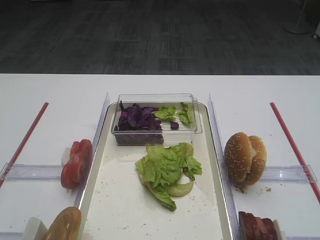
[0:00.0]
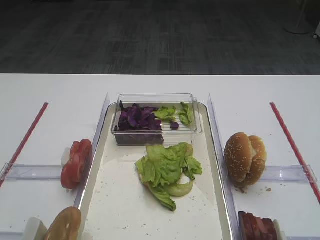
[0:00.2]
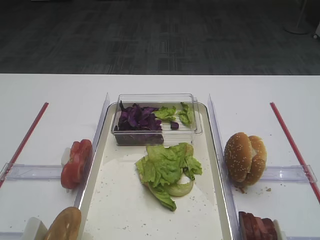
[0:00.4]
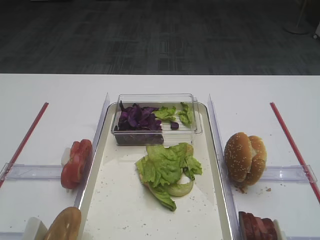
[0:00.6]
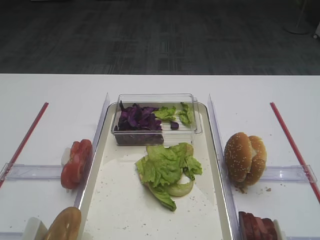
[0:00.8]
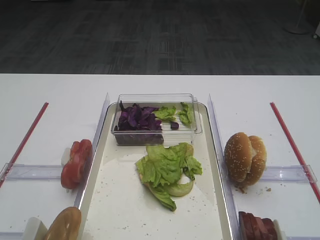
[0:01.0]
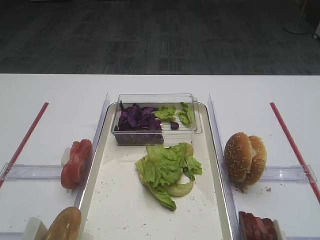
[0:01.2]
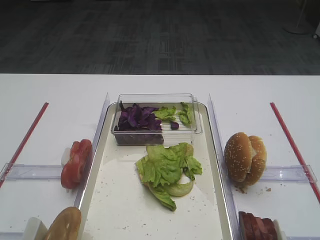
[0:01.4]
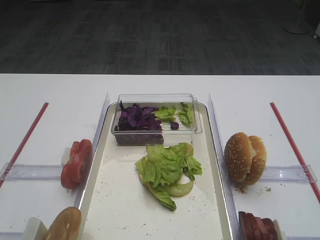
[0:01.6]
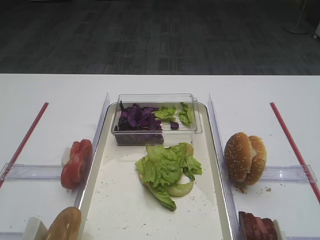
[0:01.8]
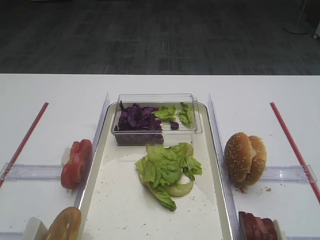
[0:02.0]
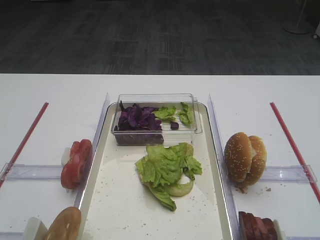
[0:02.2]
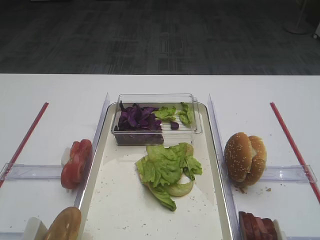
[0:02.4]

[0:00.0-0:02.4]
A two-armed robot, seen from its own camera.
0:00.0 to 0:02.4: Neither gripper changes place.

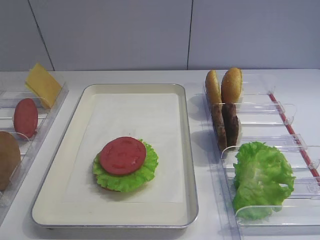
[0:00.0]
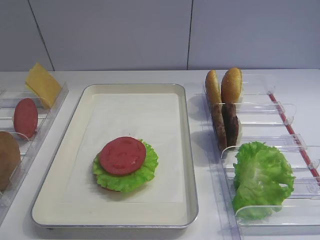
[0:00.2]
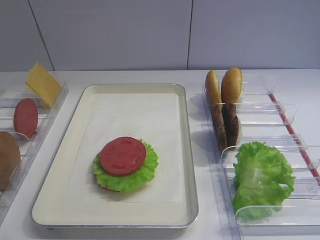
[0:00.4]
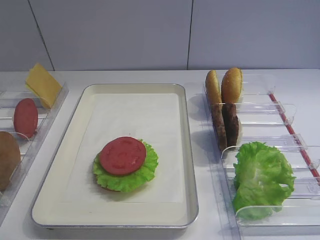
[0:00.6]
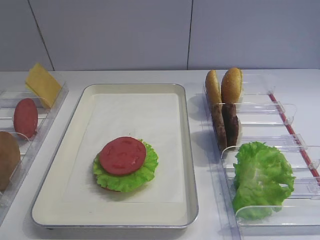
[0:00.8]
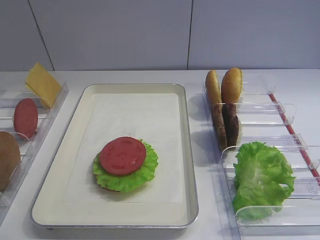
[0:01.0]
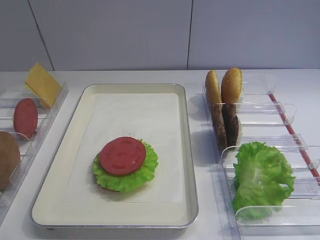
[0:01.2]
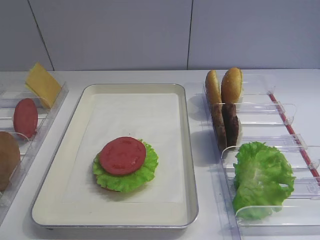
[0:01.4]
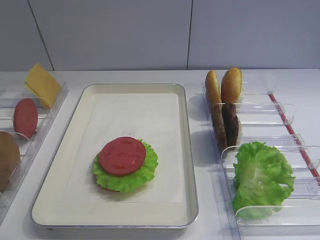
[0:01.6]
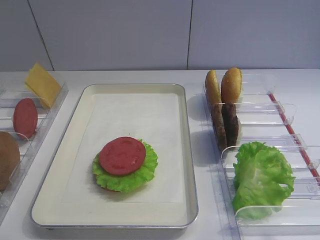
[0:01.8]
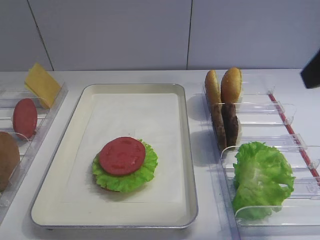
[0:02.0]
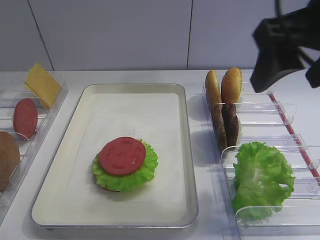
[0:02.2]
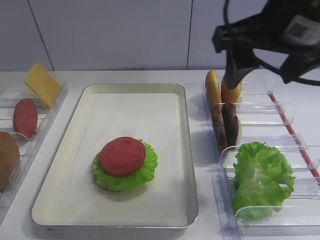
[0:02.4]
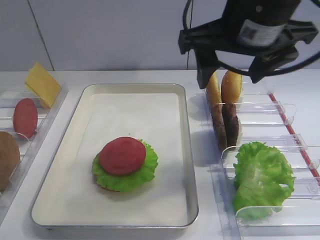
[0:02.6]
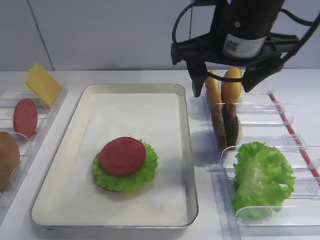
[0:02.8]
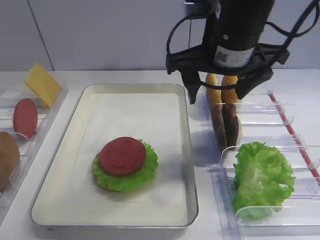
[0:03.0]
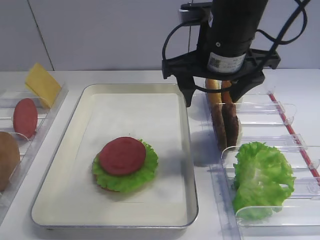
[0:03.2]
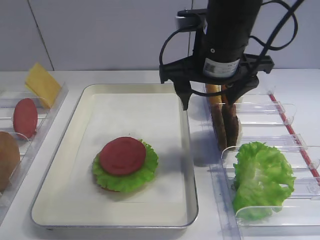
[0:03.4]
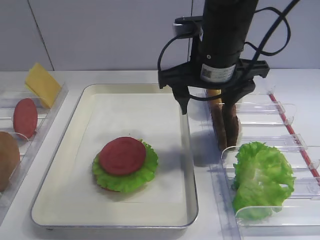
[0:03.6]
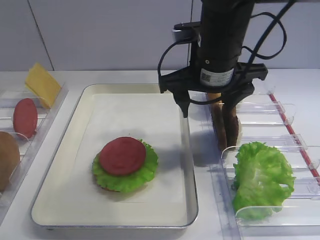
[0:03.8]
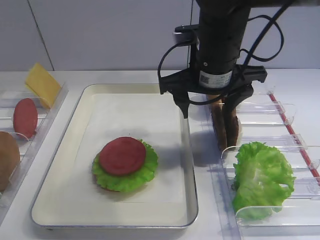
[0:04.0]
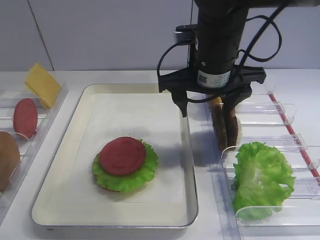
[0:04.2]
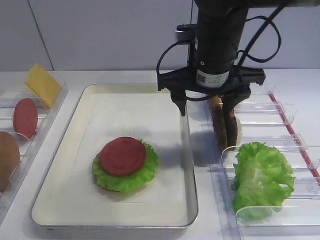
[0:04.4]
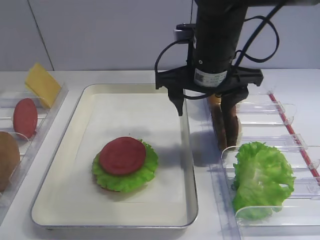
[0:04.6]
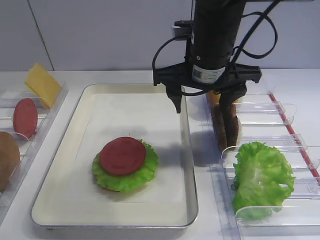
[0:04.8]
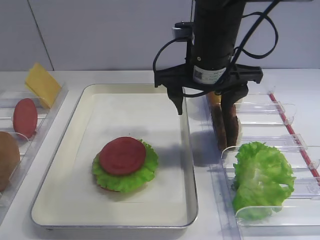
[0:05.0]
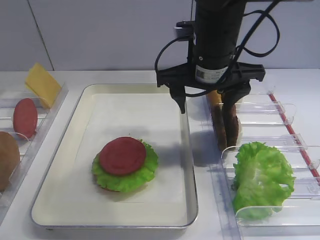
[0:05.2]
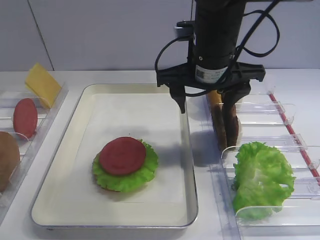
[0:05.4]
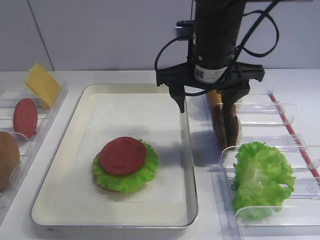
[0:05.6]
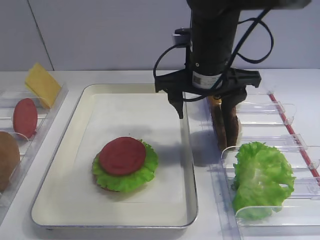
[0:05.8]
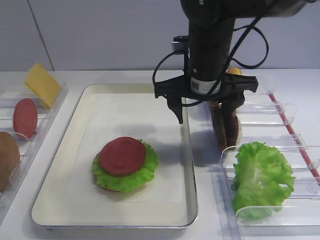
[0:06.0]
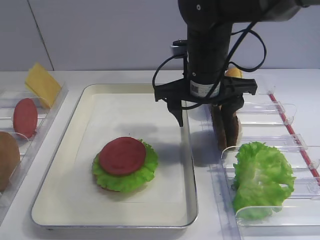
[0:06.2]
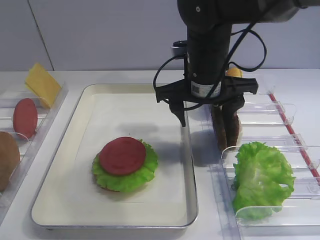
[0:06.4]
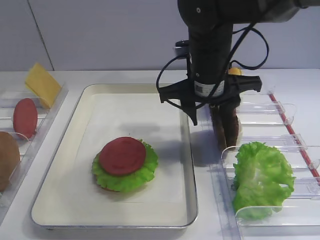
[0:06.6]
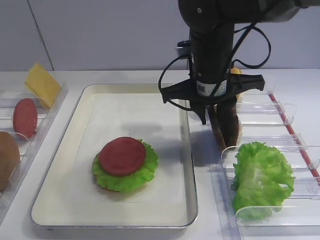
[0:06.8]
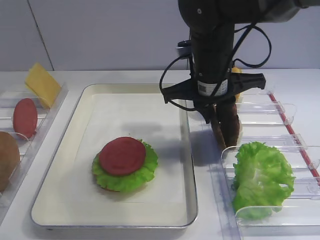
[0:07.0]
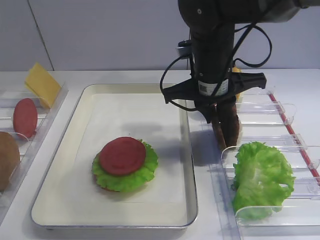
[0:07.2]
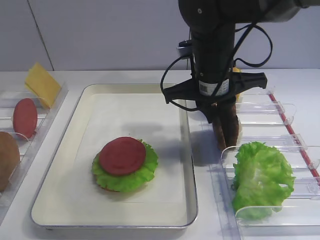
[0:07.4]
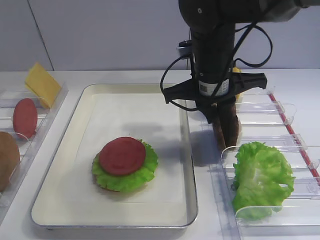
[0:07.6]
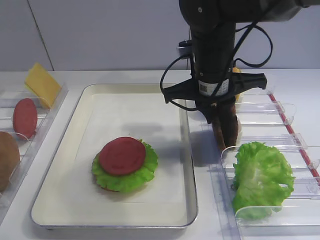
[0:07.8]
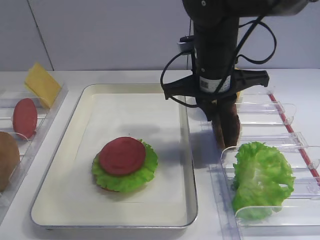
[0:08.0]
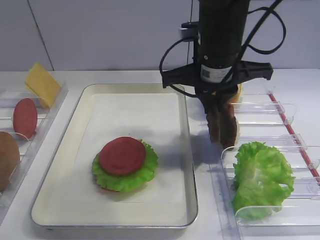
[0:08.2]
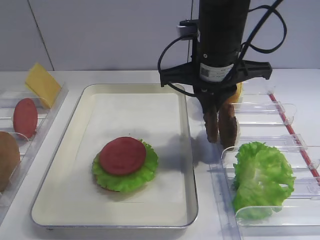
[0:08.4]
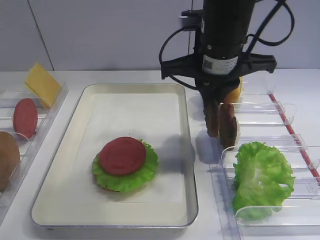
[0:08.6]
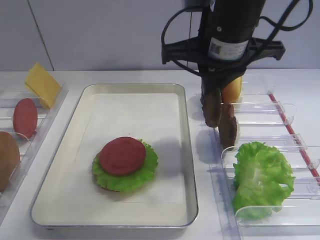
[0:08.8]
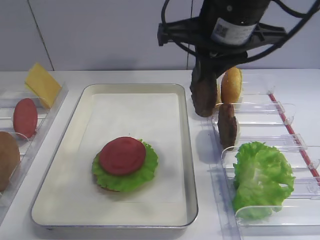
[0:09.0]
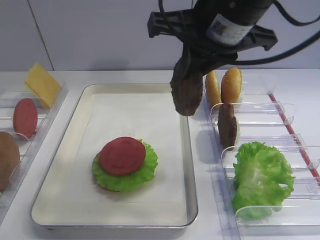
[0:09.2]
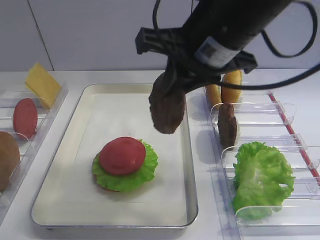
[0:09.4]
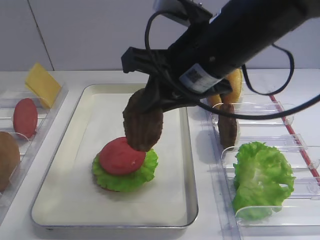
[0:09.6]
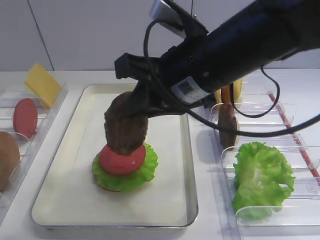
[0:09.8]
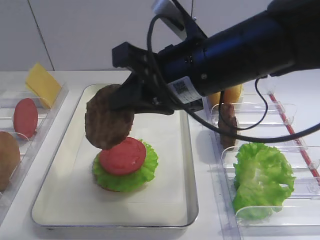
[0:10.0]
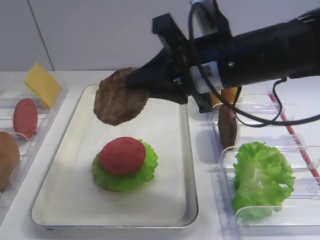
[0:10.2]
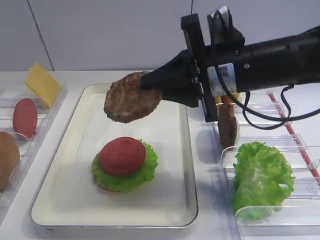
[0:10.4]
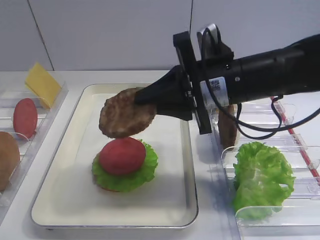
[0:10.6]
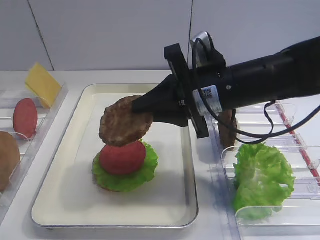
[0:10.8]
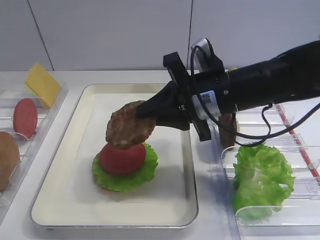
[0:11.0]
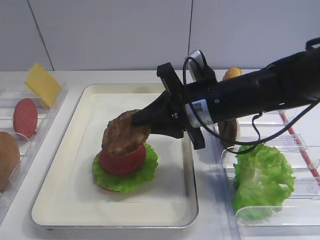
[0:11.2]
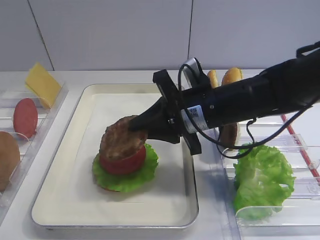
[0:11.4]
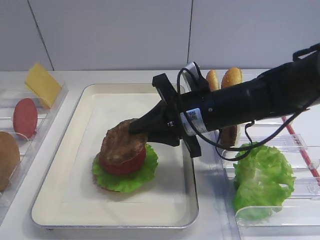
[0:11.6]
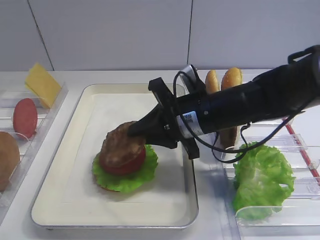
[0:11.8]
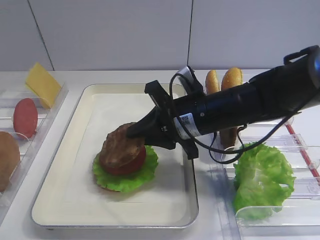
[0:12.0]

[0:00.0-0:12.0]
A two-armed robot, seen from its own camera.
Step, 0:00.0 to 0:08.4: Pick up the cutlet with the right gripper.
0:01.6 to 0:03.0: The right gripper shifts some 25 cm forward and to the left.
0:03.0 to 0:04.4: The right gripper shifts by roughly 5 cm.
0:04.4 to 0:06.0: There are only small adjustments of the grippers.
0:06.0 to 0:07.6: The right gripper closes its fingers.
0:07.6 to 0:09.0: The right gripper heads upward, covering approximately 10 cm.
0:09.0 to 0:10.4: The right gripper heads downward, covering some 10 cm.
0:10.4 to 0:12.0: The right gripper is displaced downward by about 10 cm.

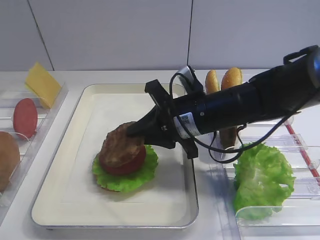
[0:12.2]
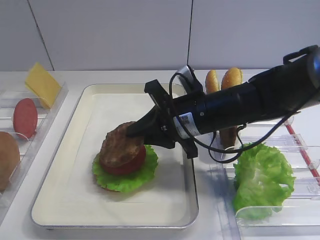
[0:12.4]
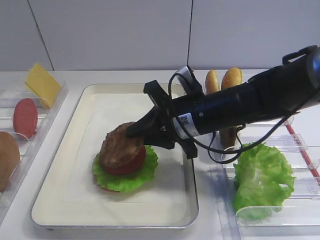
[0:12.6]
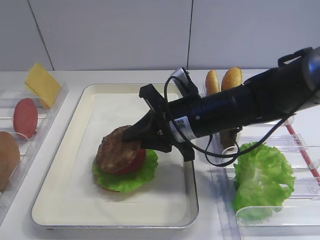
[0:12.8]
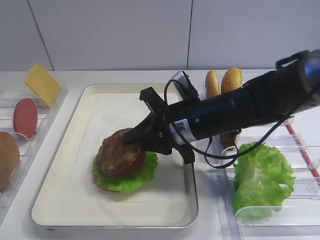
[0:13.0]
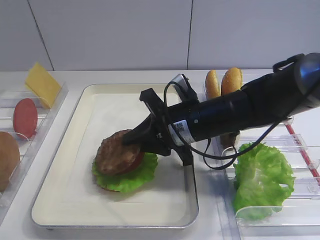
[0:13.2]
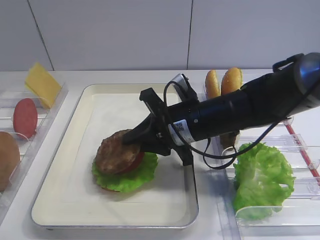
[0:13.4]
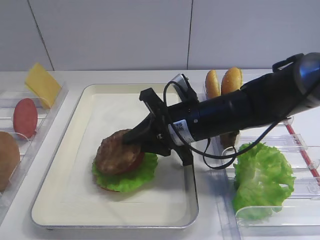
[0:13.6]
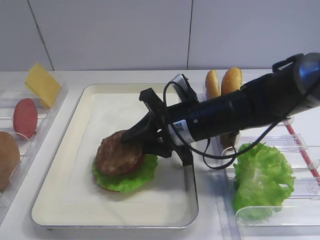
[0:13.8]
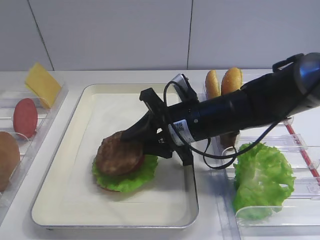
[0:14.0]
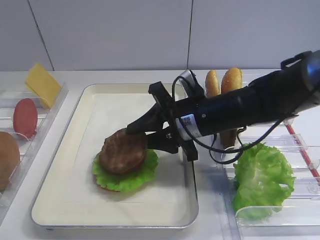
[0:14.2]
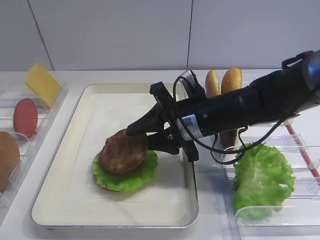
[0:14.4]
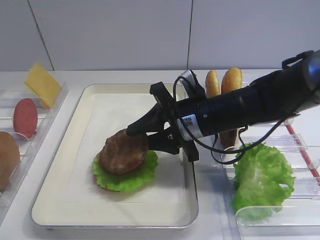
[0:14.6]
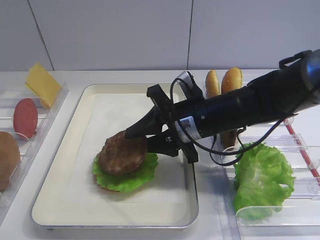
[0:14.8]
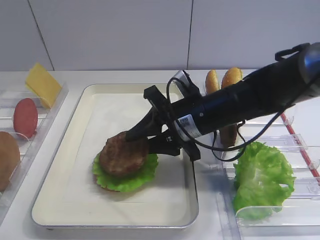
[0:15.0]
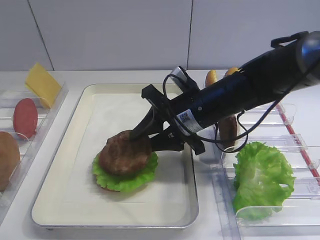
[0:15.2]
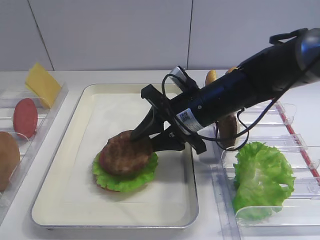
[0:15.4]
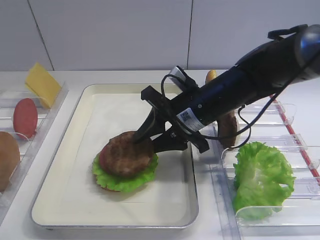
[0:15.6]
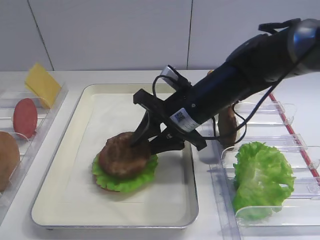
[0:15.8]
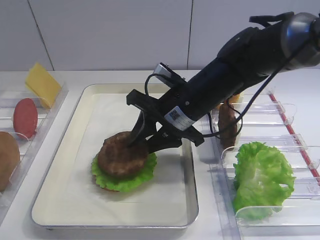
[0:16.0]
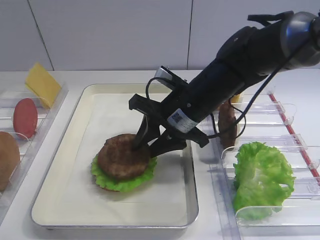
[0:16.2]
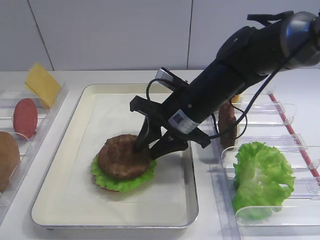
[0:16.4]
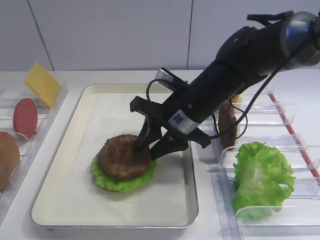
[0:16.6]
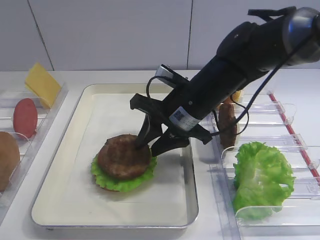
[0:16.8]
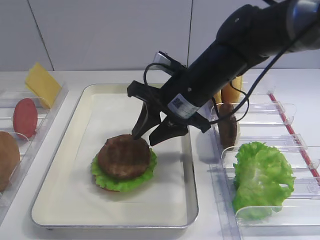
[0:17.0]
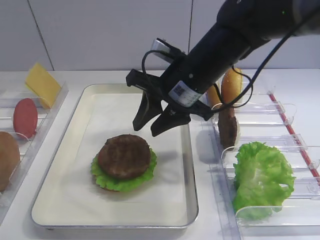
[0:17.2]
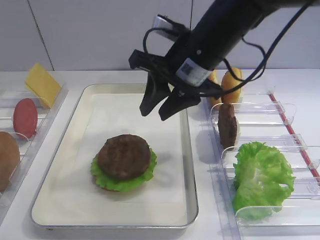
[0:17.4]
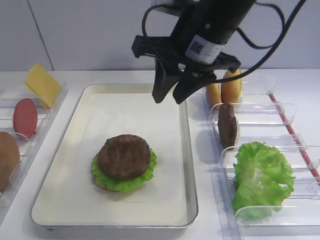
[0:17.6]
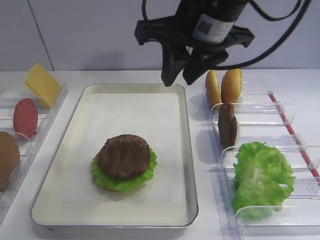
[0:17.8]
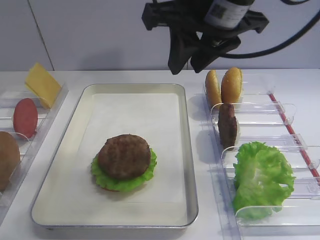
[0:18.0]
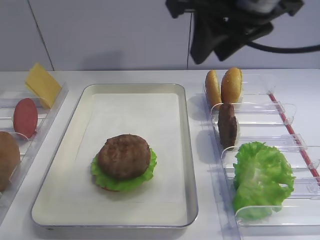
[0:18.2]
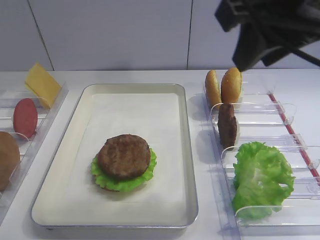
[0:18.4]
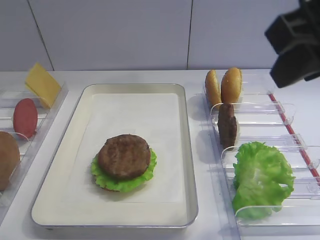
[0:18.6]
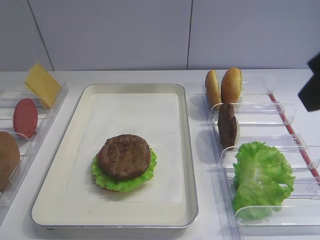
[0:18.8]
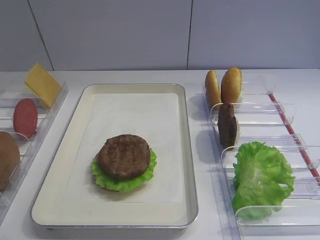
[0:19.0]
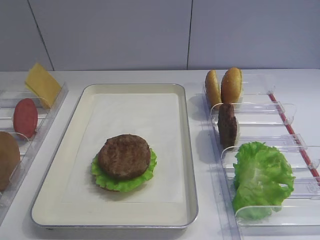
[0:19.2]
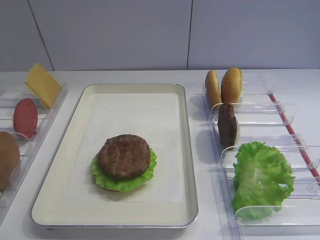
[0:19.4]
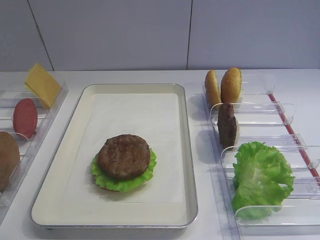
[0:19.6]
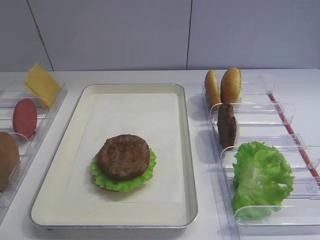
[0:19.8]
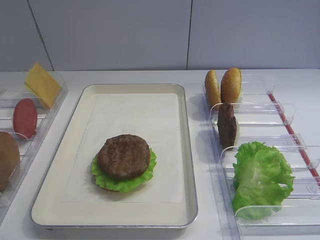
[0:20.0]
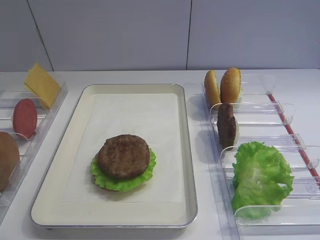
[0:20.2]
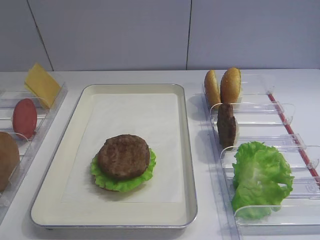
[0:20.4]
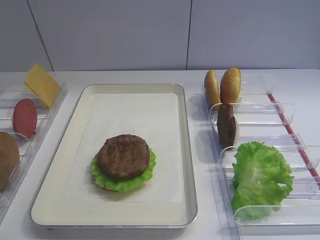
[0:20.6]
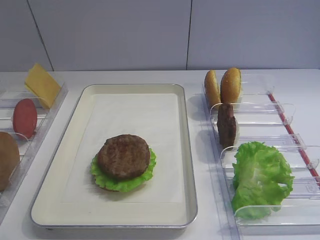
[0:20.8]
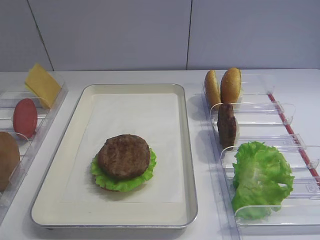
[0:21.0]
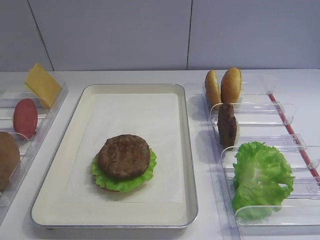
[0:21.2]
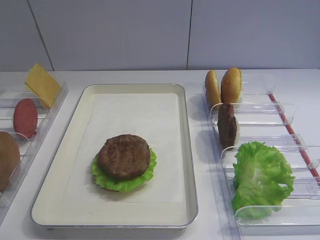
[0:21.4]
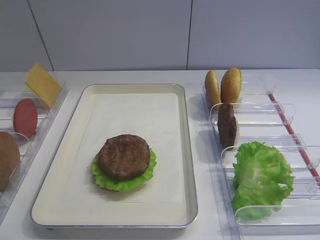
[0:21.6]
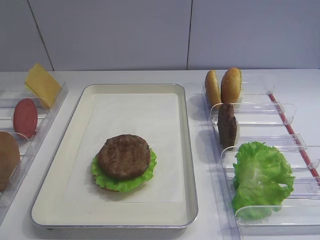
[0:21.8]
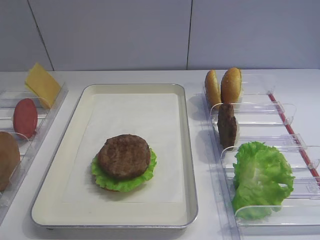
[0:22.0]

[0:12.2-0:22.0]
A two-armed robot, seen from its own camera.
Step, 0:12.2 to 0:17.0: Place the cutlet on the tomato slice with the right gripper.
0:12.2 to 0:15.0: The grippers move only a little.
0:16.4 to 0:17.8: The right gripper is displaced upward by about 15 cm.
0:17.8 to 0:19.2: The right gripper is displaced backward and to the right by roughly 25 cm.
0:19.2 to 0:20.6: The right gripper goes some 15 cm backward, downward and to the right.
